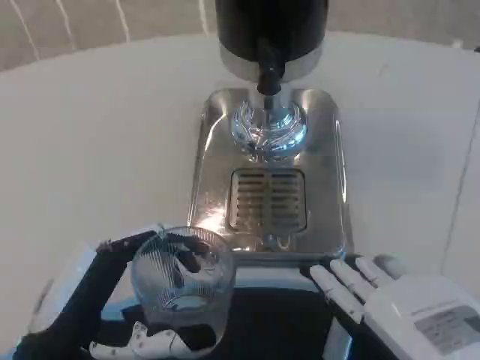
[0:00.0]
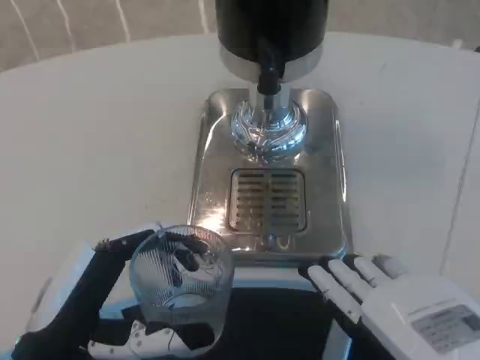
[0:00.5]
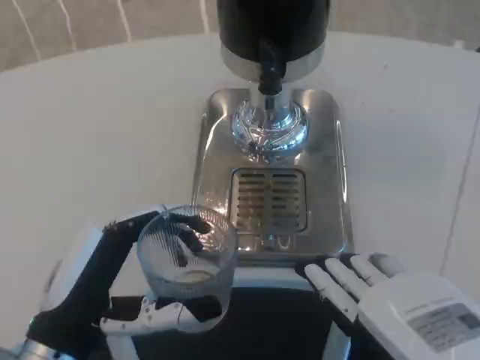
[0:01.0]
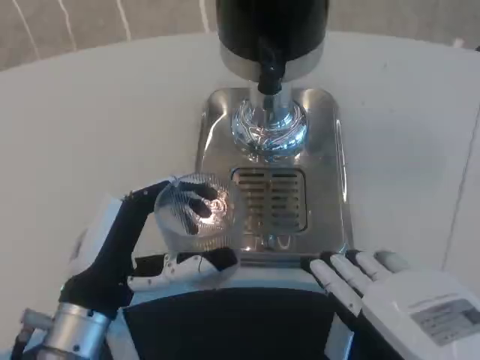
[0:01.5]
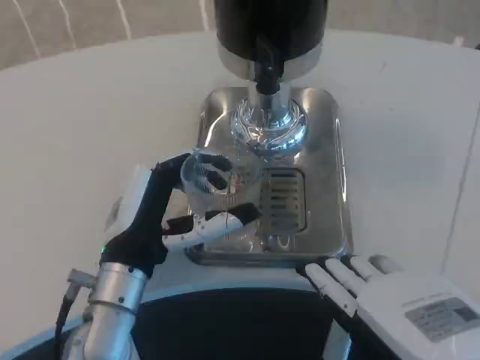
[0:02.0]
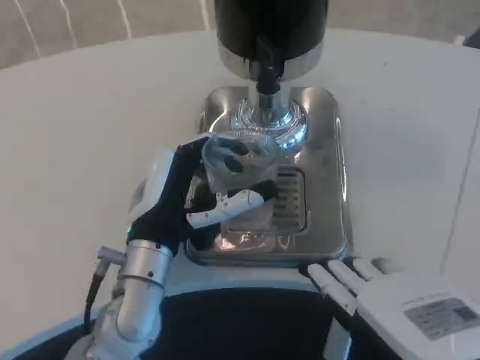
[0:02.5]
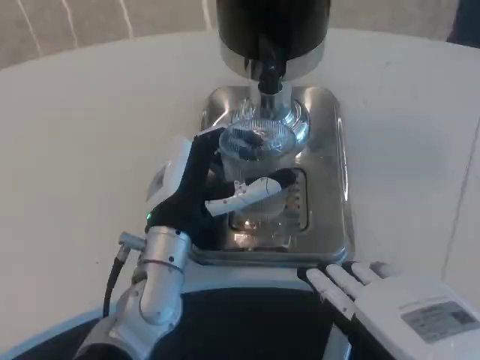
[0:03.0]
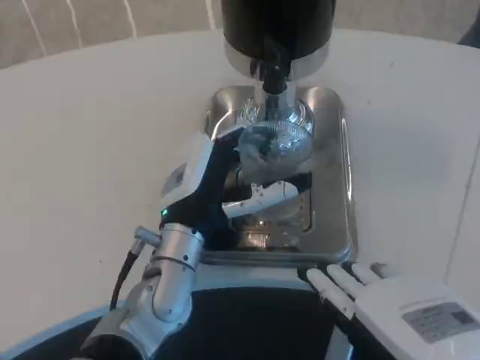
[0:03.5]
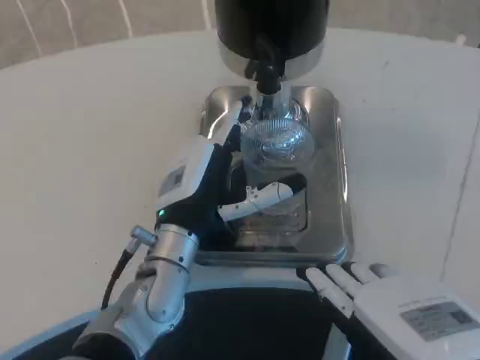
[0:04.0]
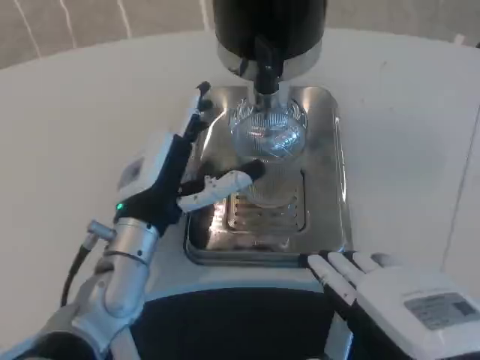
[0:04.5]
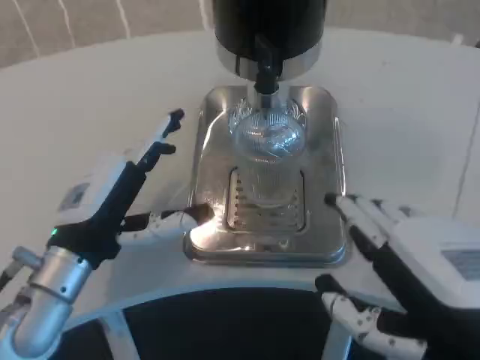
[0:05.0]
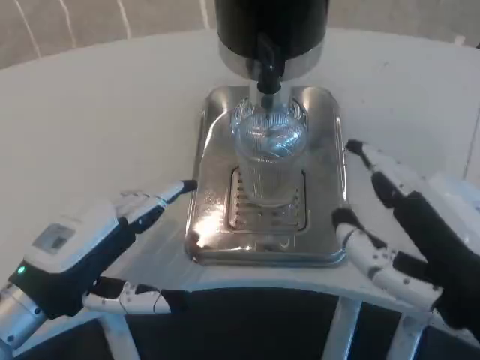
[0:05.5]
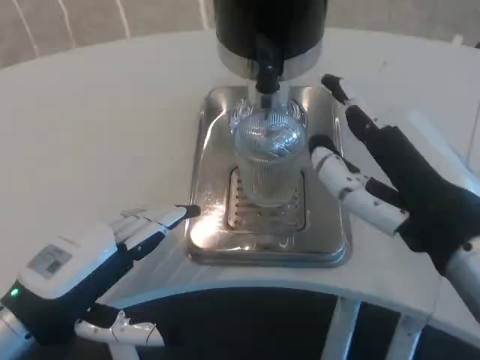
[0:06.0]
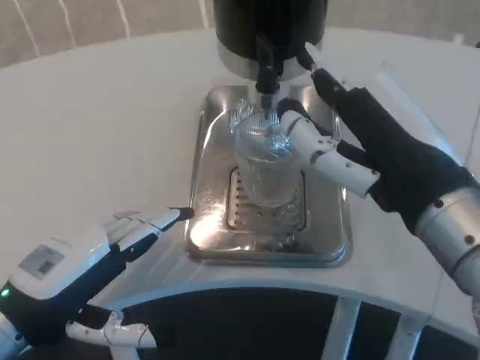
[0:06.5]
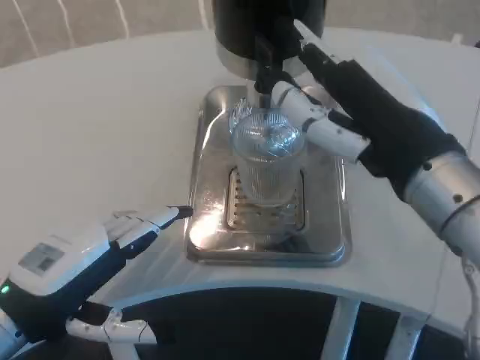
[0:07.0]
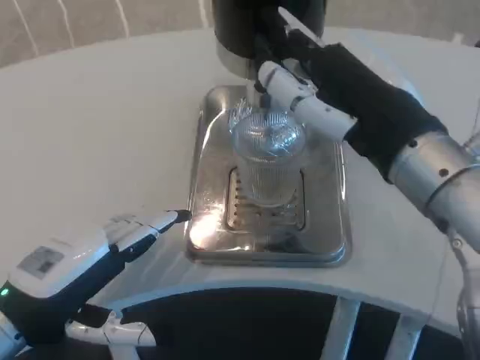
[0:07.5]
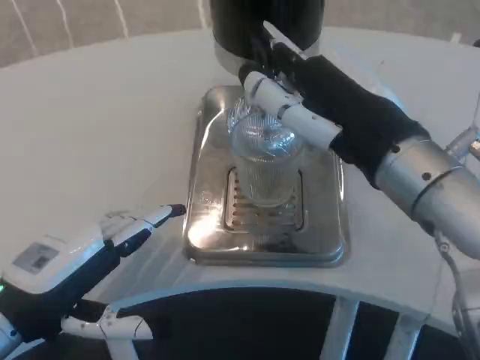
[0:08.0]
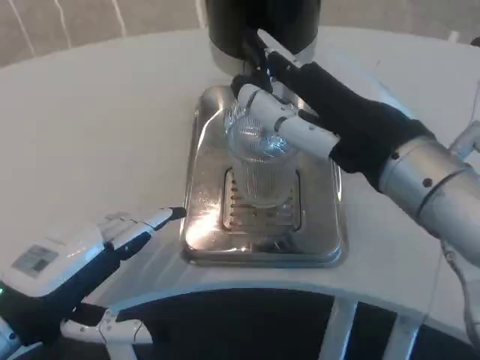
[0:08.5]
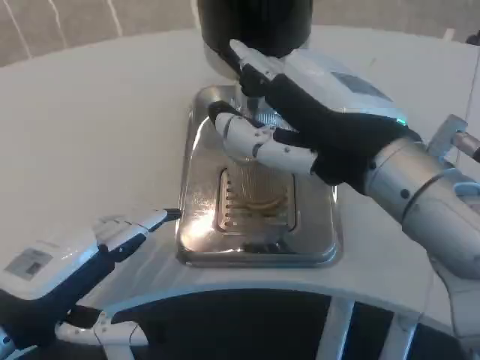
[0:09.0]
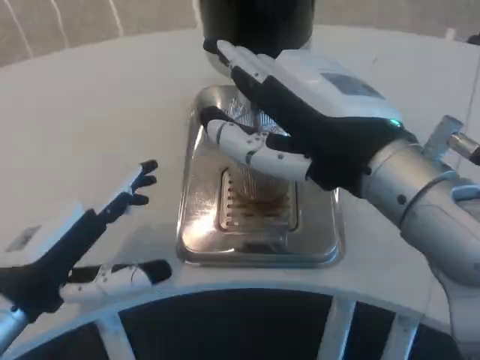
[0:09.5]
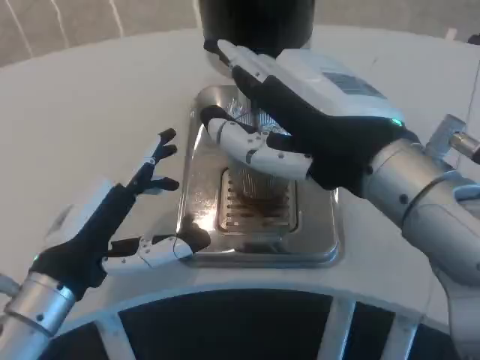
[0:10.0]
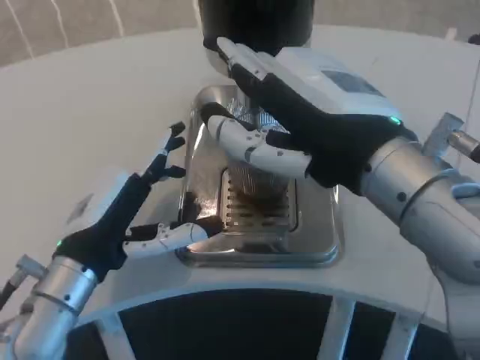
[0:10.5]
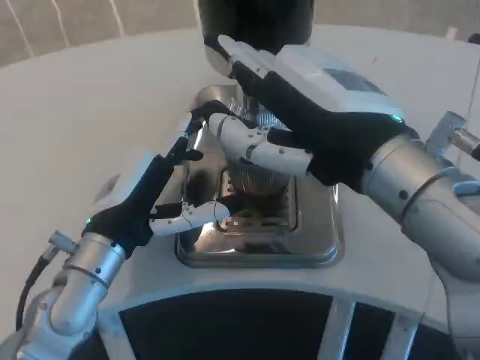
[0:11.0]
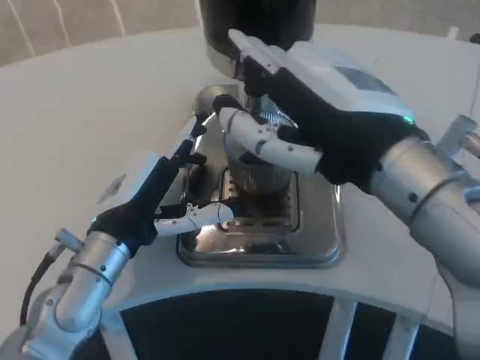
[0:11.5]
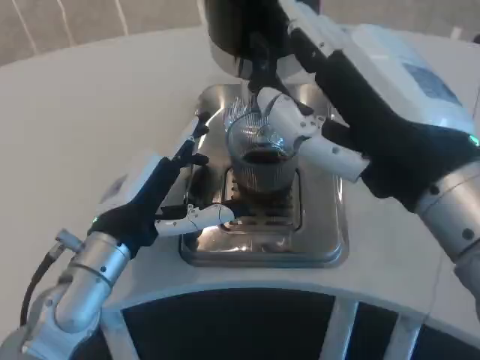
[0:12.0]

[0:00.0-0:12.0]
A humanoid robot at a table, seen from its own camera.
Task of the whole recording: Grasp the cup under the faucet to collect the drink, then remove the cup.
0:00.0 to 0:02.0: The left hand heads forward and to the right, covering roughly 10 cm.
0:02.0 to 0:04.0: The left hand shifts by some 5 cm.
0:04.0 to 0:06.0: The left hand travels to the left and backward by about 20 cm; the right hand shifts roughly 5 cm forward.
0:06.0 to 0:08.0: The right hand heads forward, covering about 5 cm.
0:08.0 to 0:10.0: The left hand shifts about 5 cm to the right.
0:10.0 to 0:12.0: The left hand goes about 5 cm forward.

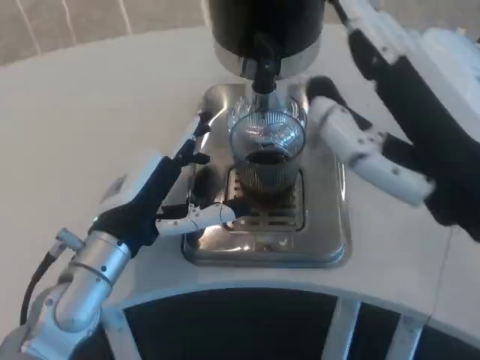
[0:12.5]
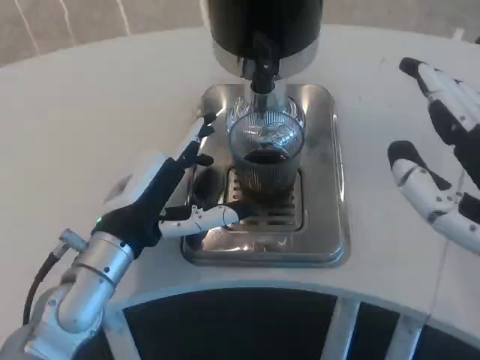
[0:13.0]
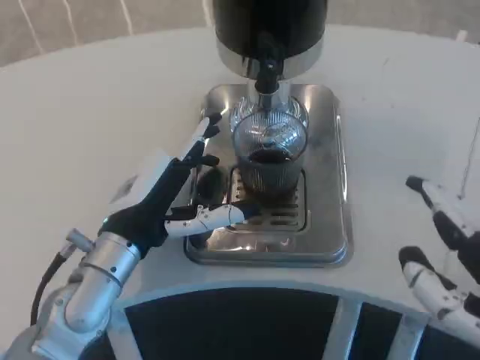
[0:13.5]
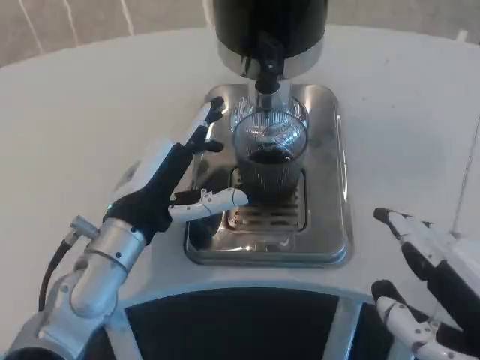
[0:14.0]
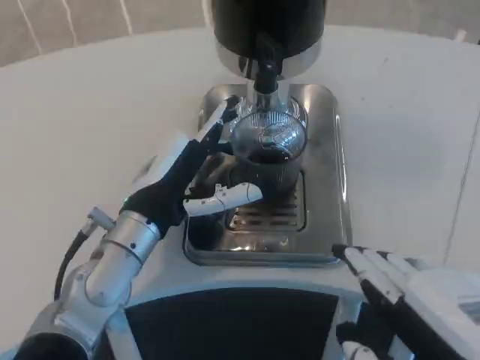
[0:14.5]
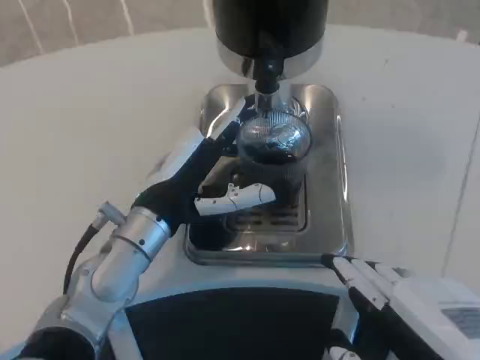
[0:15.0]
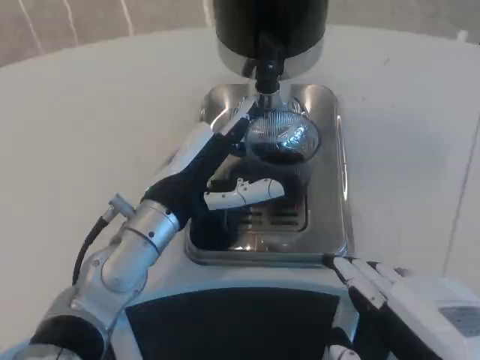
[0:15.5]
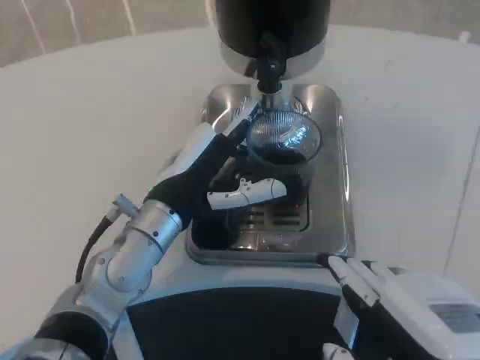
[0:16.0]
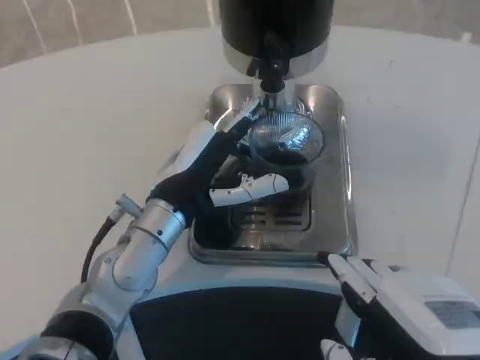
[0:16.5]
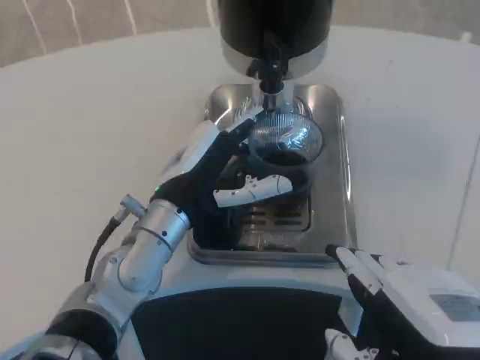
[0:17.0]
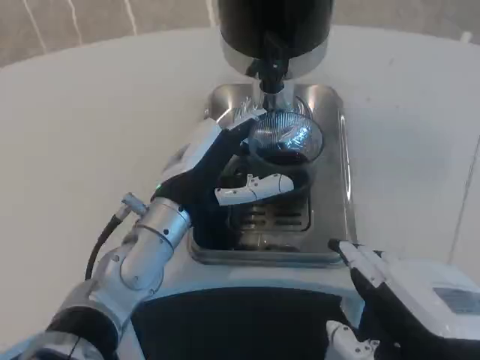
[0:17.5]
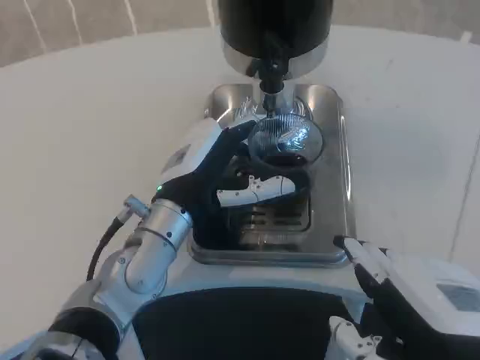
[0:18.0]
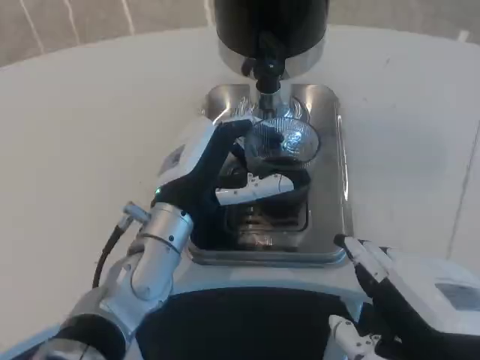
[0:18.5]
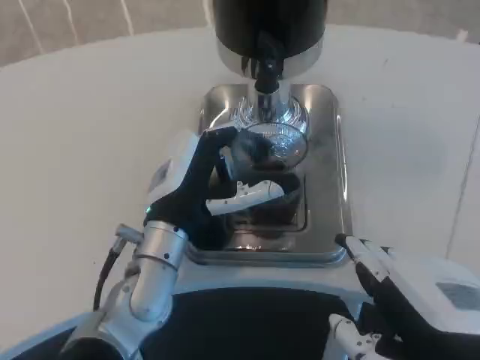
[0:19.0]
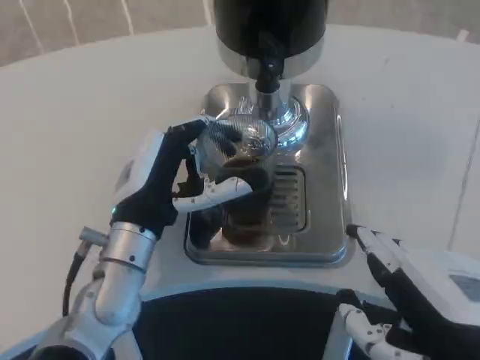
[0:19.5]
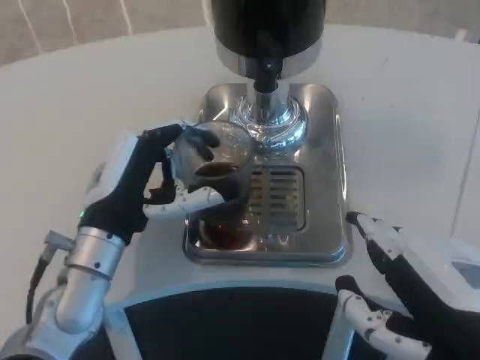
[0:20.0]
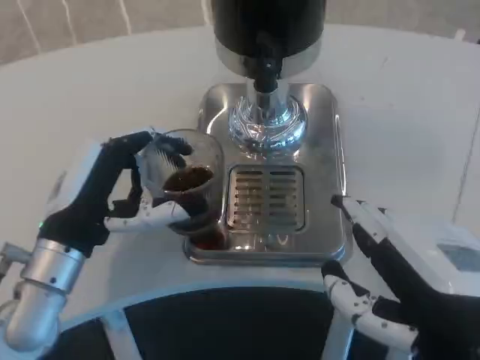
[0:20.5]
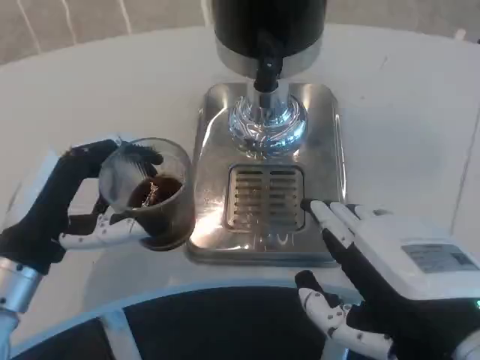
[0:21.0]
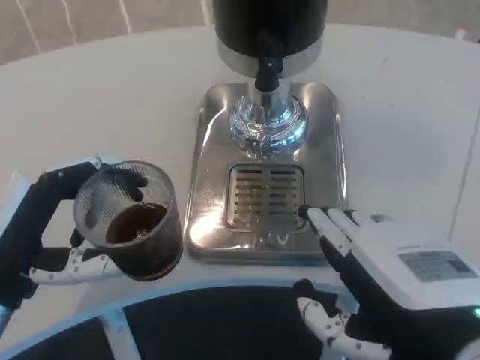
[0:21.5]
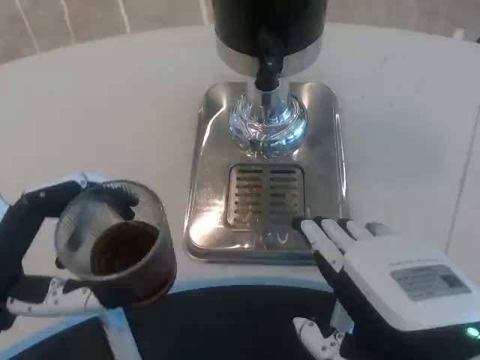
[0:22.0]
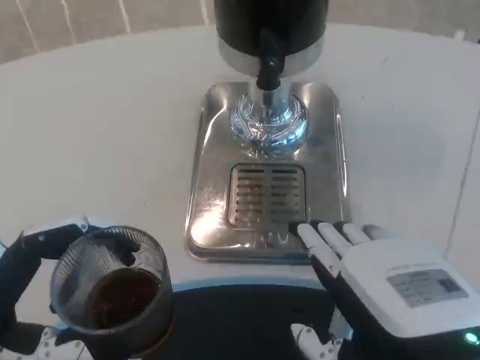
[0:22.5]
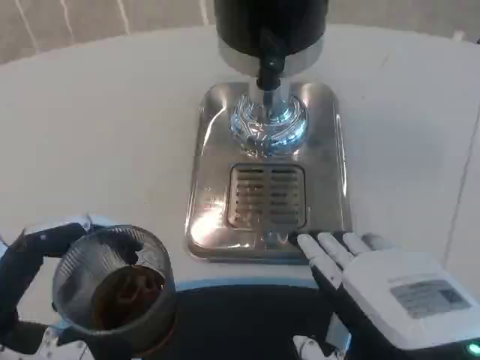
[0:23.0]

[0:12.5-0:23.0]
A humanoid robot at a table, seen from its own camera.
Task of the whole recording: Grasp the cup under the faucet to collect the drink, then remove the cup.
0:12.5 to 0:14.5: The right hand is displaced downward by roughly 10 cm.
0:16.5 to 0:19.0: The hands stay close to where they were, moving slightly.
0:19.0 to 0:21.0: The left hand shifts about 15 cm to the left and backward.
0:21.0 to 0:23.0: The left hand shifts roughly 10 cm backward.

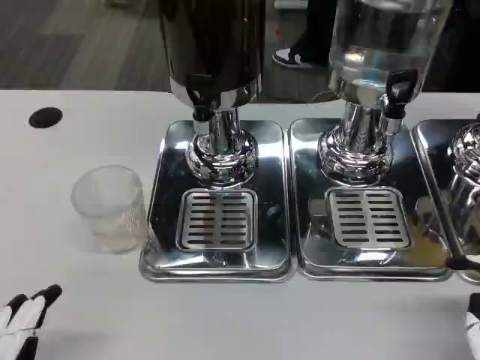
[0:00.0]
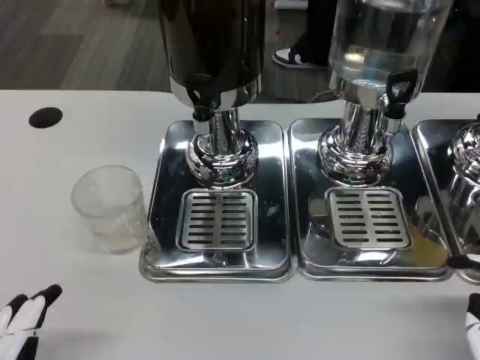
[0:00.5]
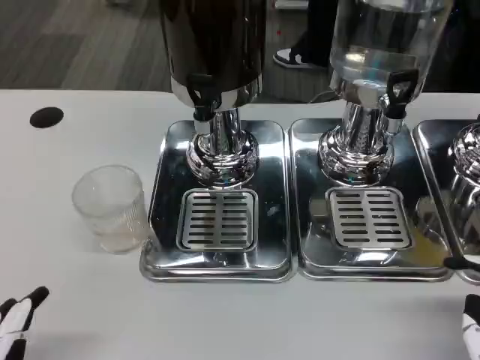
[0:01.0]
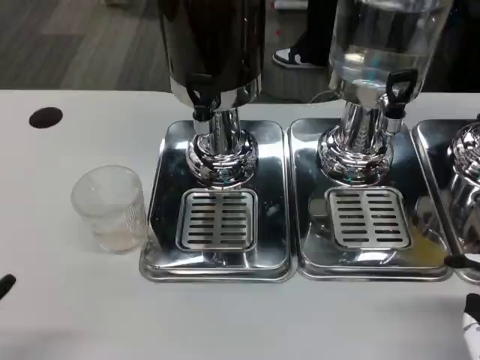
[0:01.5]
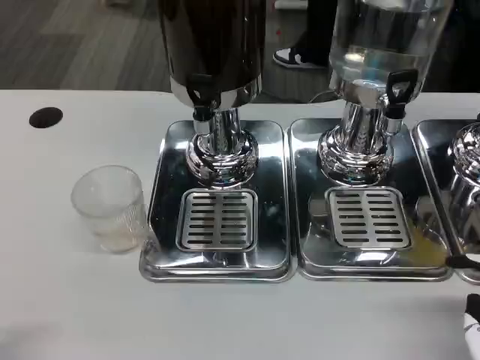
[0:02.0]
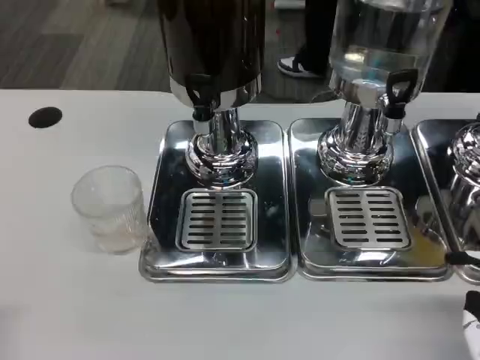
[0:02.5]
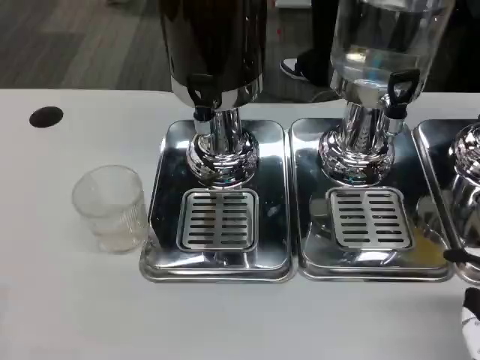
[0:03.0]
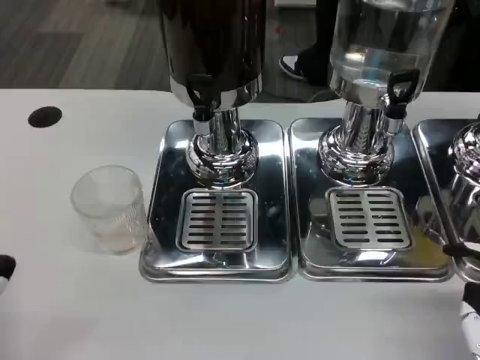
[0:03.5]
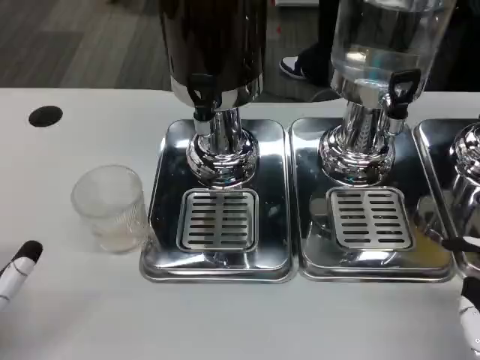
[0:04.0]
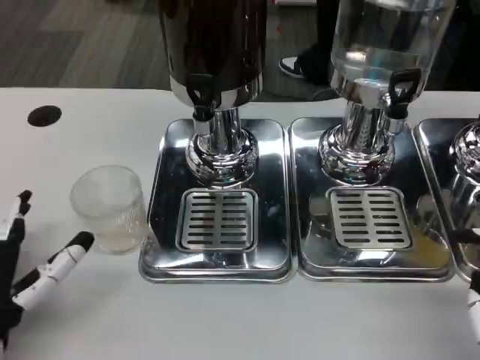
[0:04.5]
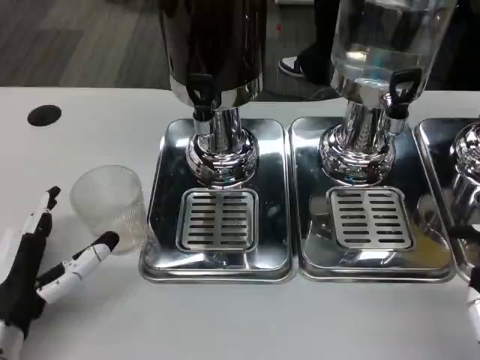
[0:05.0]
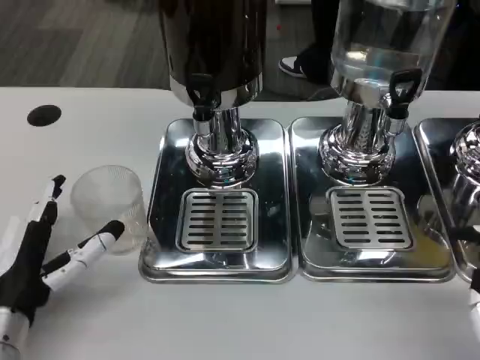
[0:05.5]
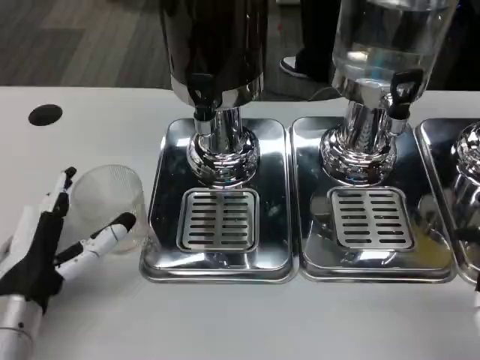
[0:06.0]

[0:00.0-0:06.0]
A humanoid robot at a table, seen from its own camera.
Task of the whole recording: Grasp the cup under the faucet to collect the drink, then remove the cup.
0:02.0 to 0:04.0: The left hand heads forward, covering approximately 10 cm.
0:04.0 to 0:06.0: The left hand heads forward, covering some 5 cm.
